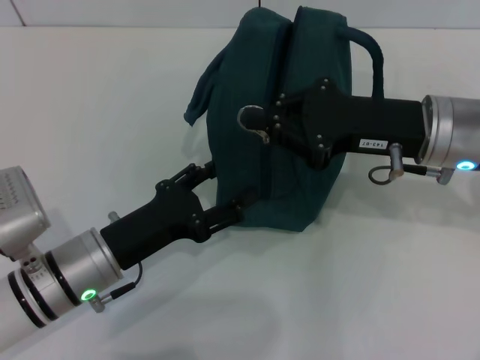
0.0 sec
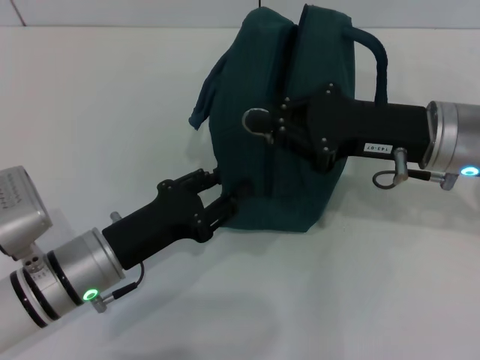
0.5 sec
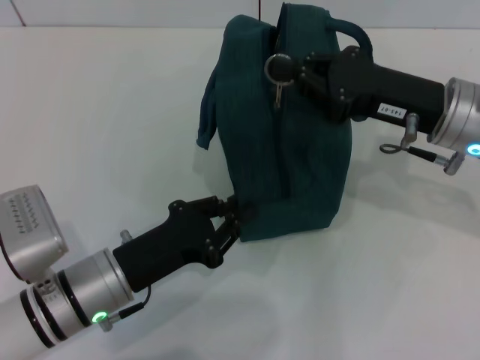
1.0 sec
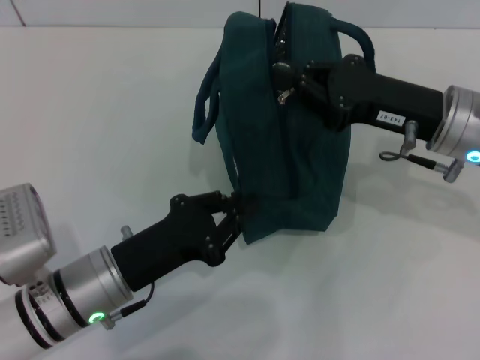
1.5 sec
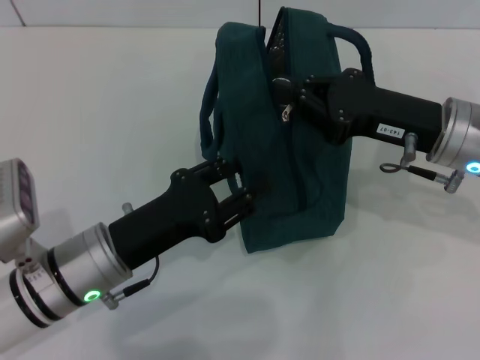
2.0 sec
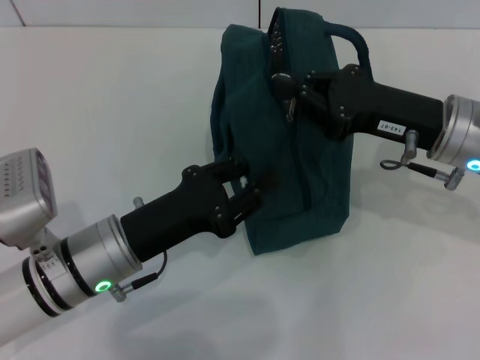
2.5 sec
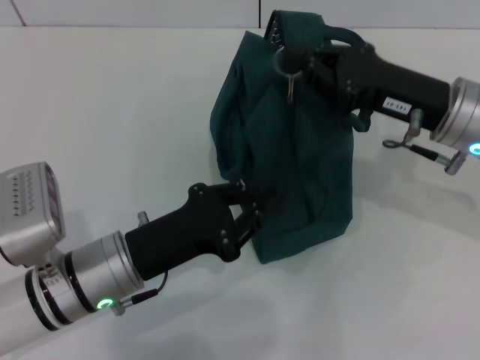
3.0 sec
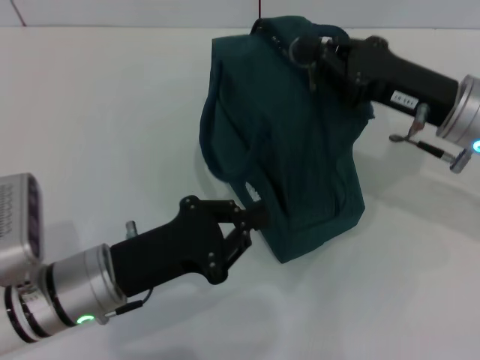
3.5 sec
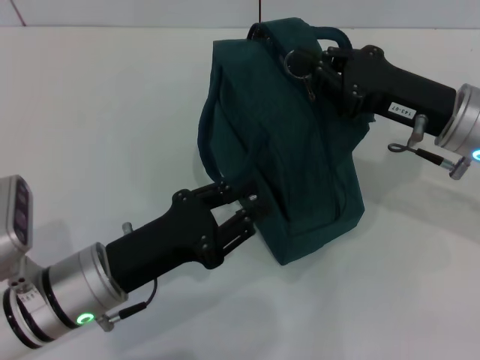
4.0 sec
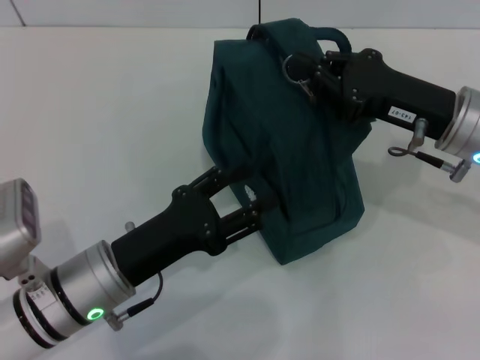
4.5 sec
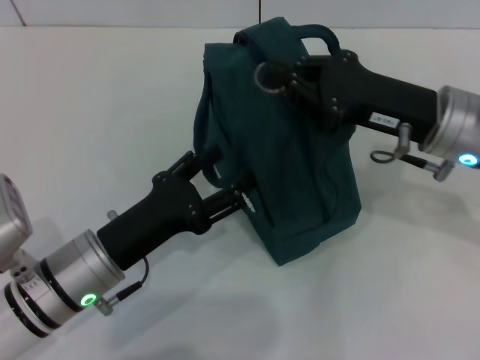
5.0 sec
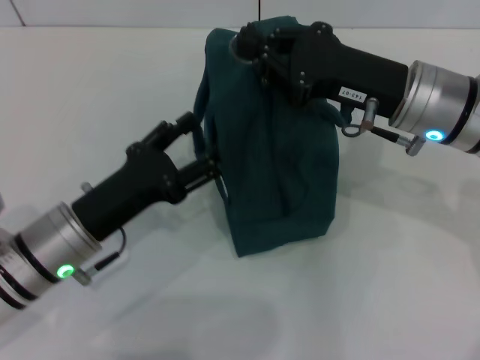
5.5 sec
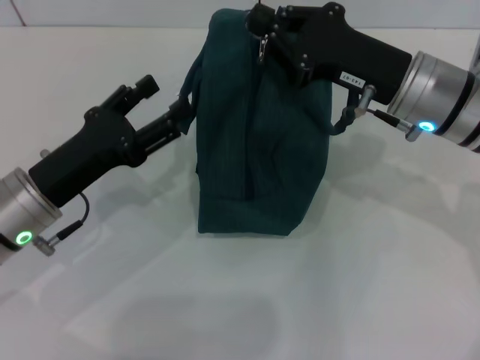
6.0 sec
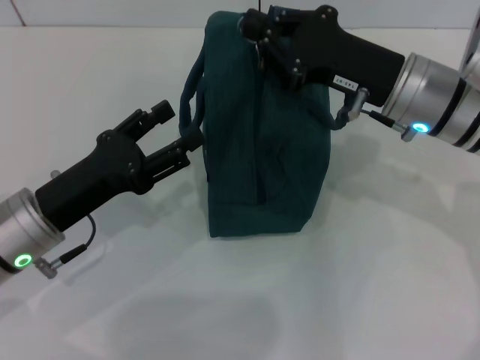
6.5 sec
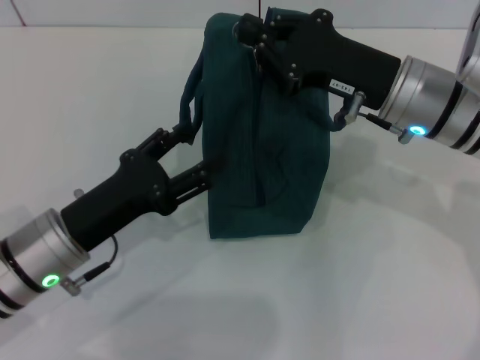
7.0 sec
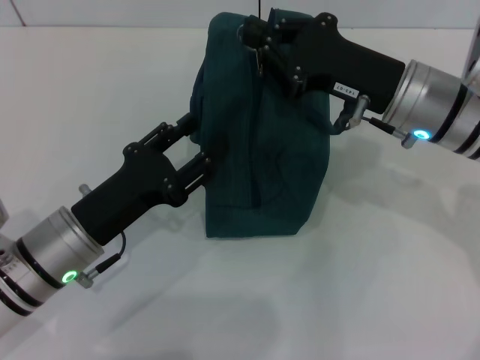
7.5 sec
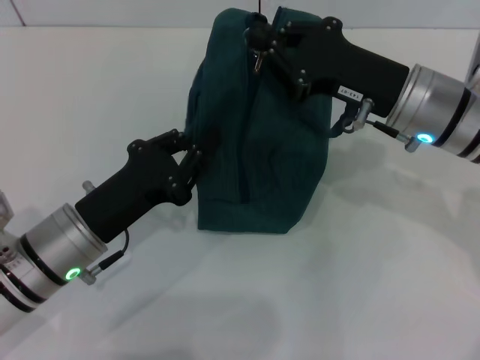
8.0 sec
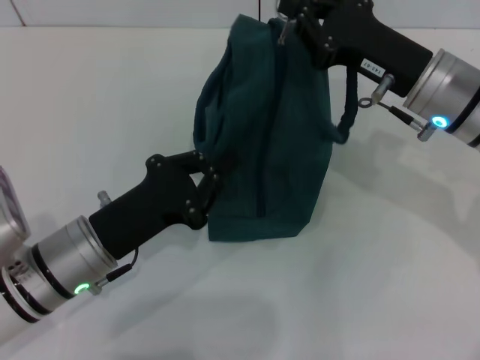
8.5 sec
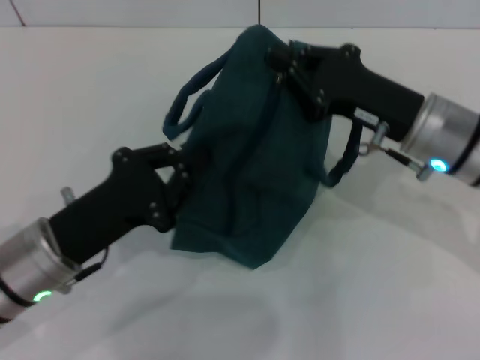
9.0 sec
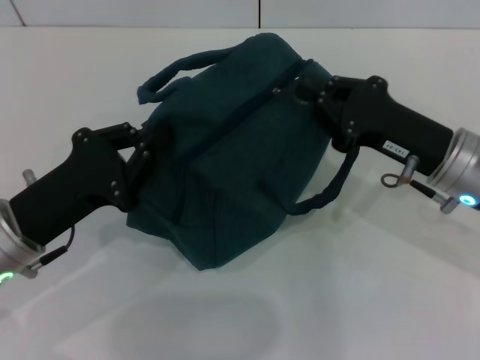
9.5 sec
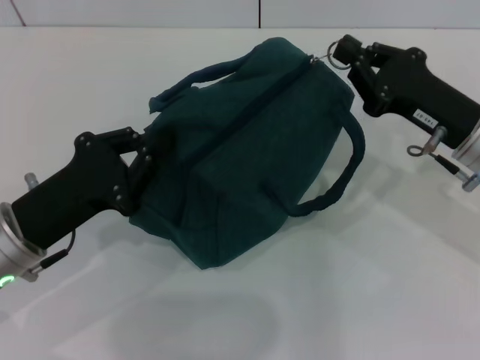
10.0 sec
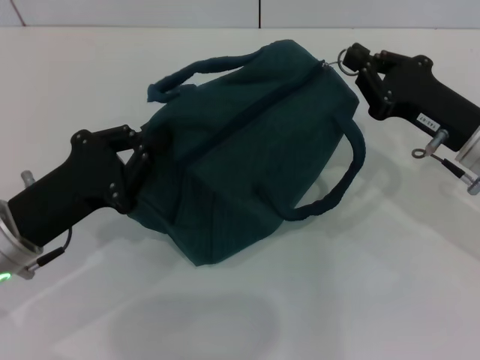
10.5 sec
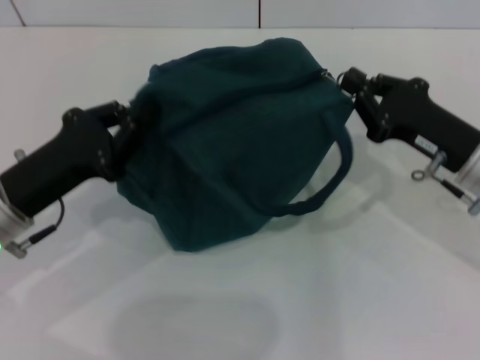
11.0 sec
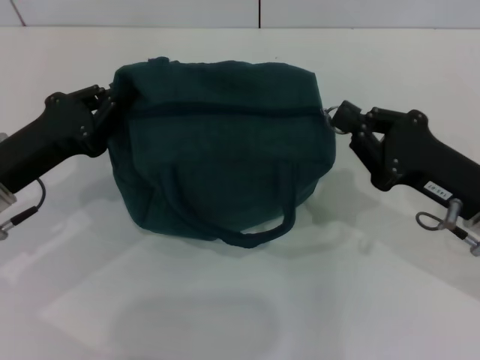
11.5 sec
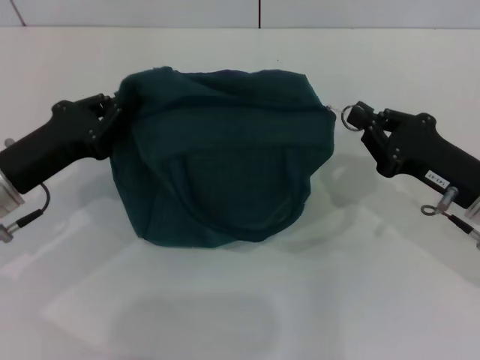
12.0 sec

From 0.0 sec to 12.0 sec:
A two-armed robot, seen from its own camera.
From 0.0 sec to 2.0 sec: The left gripper closes up.
From 2.0 sec to 4.0 sec: The grippers make only small movements.
From 4.0 sec to 6.0 sec: The left gripper shifts some 5 cm to the left and forward, and opens.
From 6.0 sec to 8.0 sec: The left gripper shifts by about 5 cm, and closes its fingers.
From 8.0 sec to 10.0 sec: The left gripper moves about 5 cm, and closes; the right gripper moves to the right, some 5 cm.
From 10.0 sec to 12.0 sec: The right gripper shifts by some 5 cm; the left gripper shifts by approximately 5 cm.

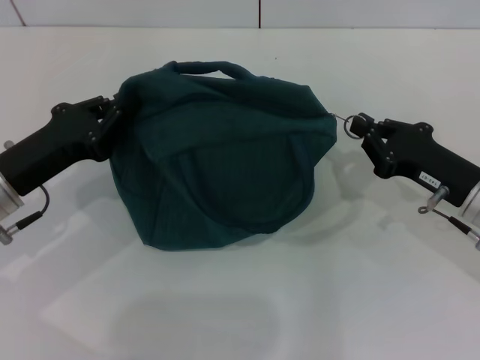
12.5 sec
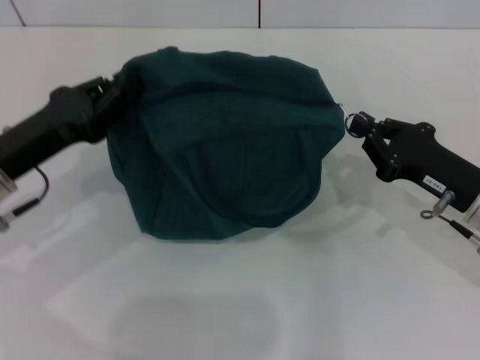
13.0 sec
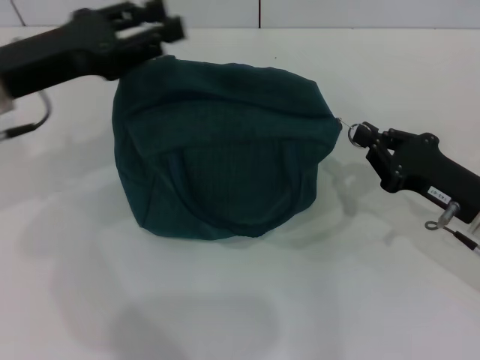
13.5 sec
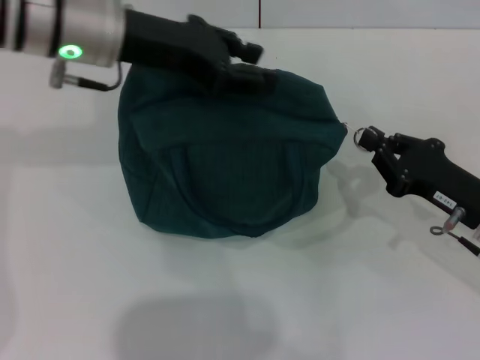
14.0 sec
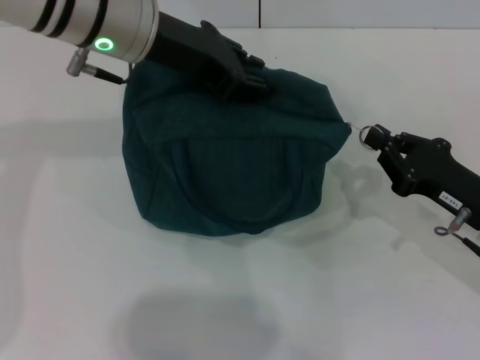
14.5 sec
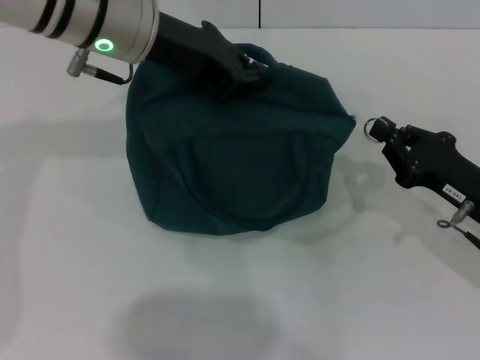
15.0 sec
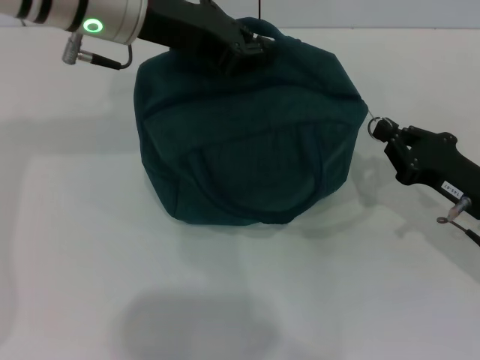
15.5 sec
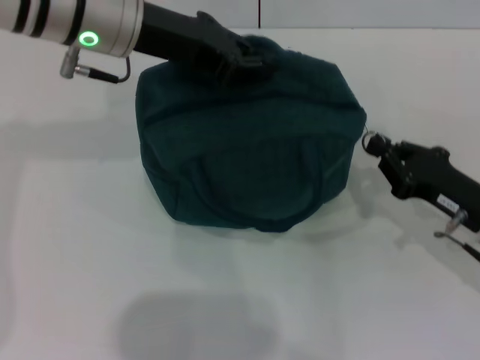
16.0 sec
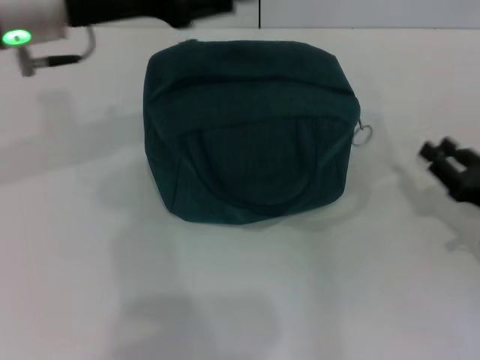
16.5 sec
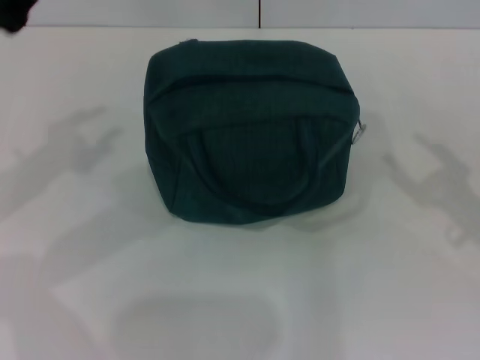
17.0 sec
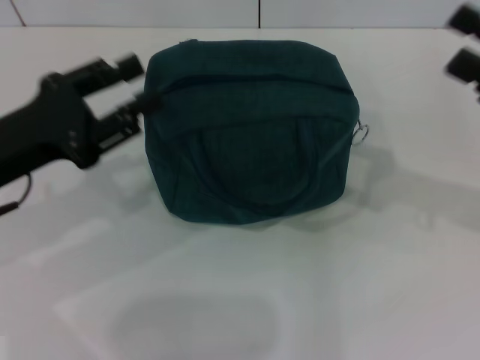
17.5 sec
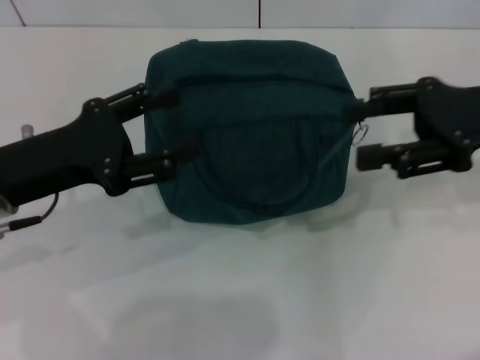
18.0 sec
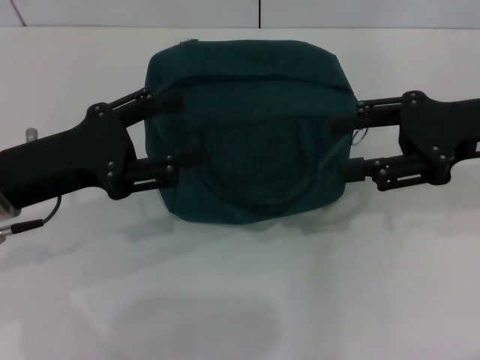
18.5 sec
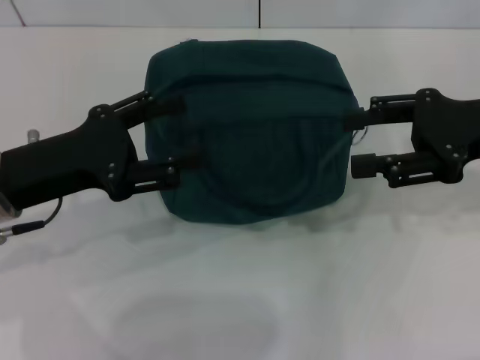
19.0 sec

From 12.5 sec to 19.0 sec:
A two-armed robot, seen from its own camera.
Step, from 12.5 sec to 16.0 sec: Zip up the lunch bag with your right hand.
From 12.5 sec to 14.5 sec: The left gripper moves upward, to the right and forward, approximately 25 cm, and opens its fingers.
From 14.5 sec to 17.0 sec: The left gripper goes approximately 20 cm to the left and backward, and closes, then opens again. Meanwhile the right gripper shifts about 5 cm to the right, and opens.
From 17.0 sec to 19.0 sec: The left gripper goes some 5 cm downward, and opens up. The right gripper is displaced upward, forward and to the left by approximately 15 cm.
